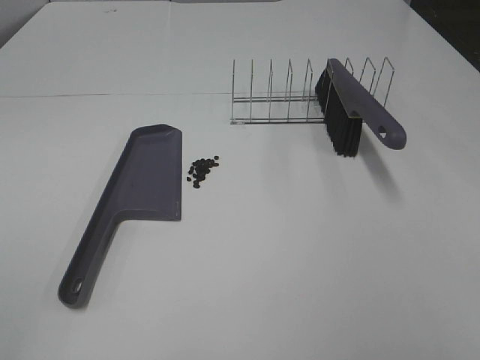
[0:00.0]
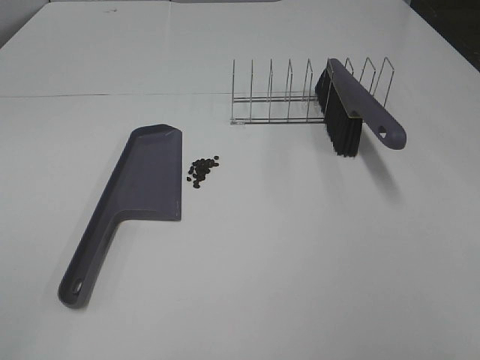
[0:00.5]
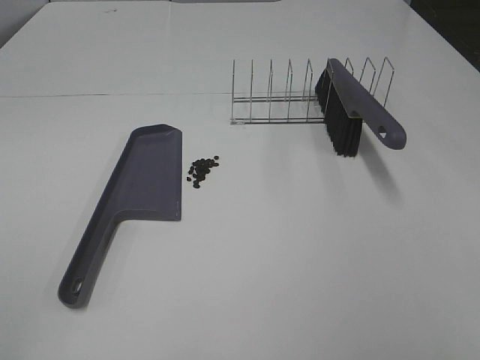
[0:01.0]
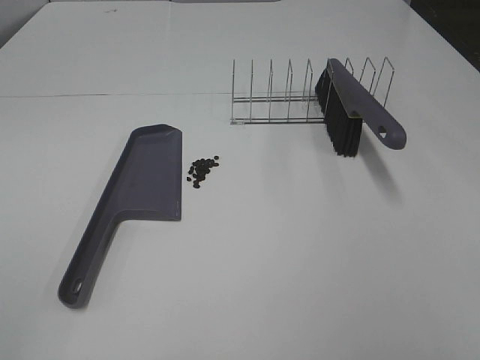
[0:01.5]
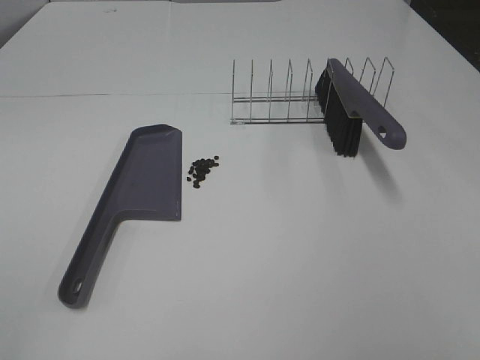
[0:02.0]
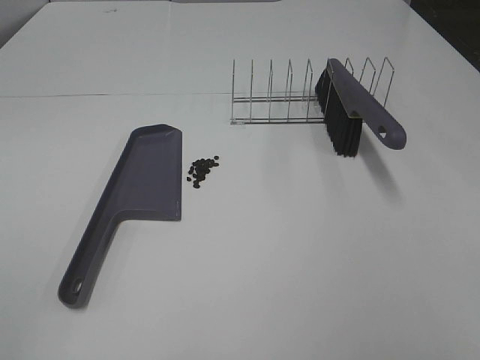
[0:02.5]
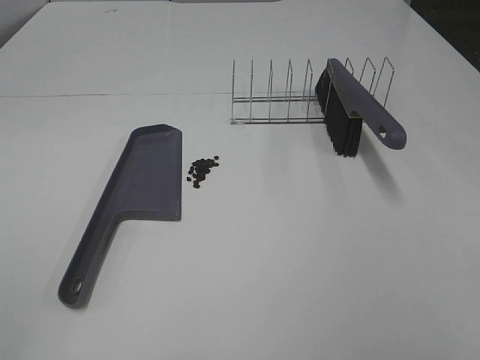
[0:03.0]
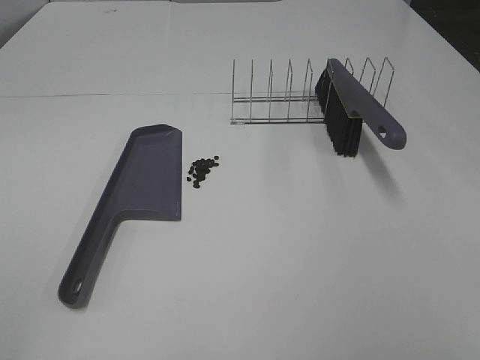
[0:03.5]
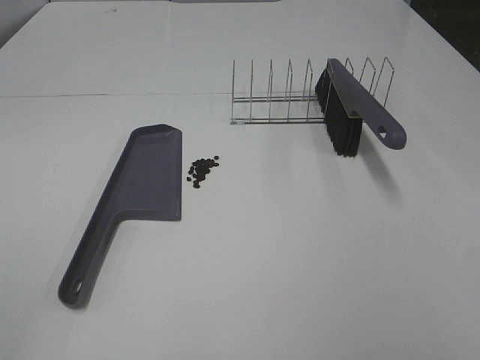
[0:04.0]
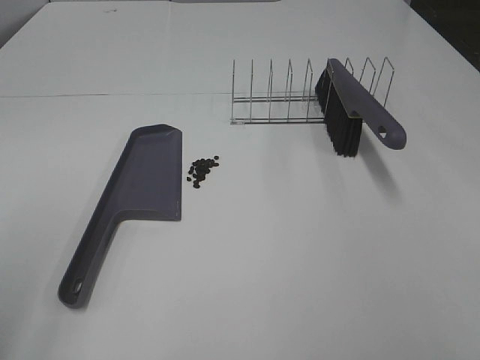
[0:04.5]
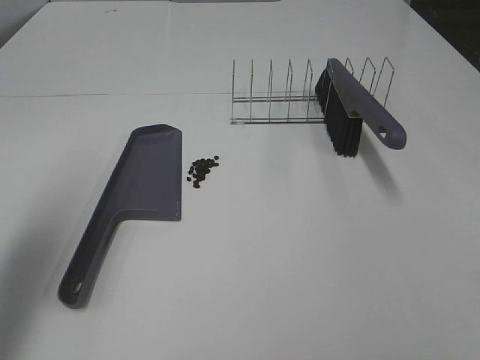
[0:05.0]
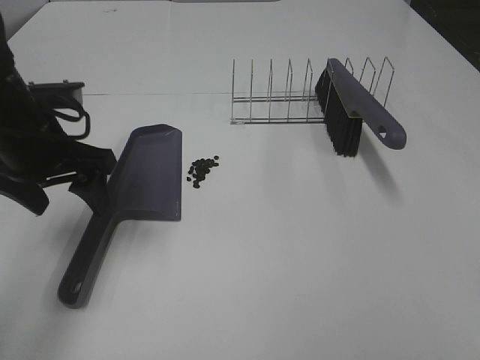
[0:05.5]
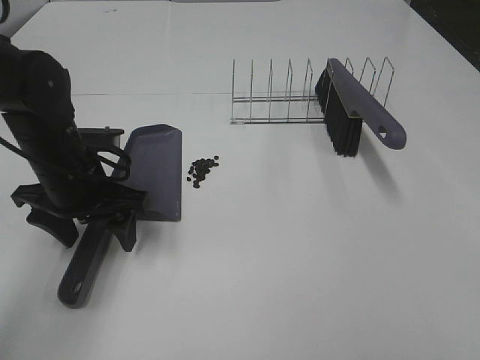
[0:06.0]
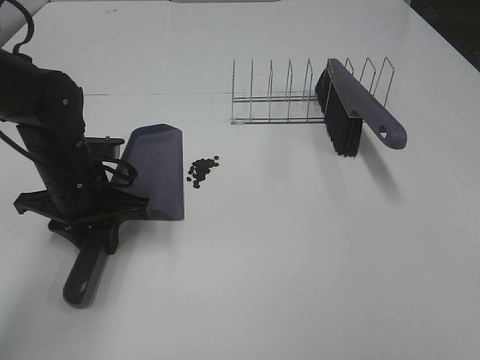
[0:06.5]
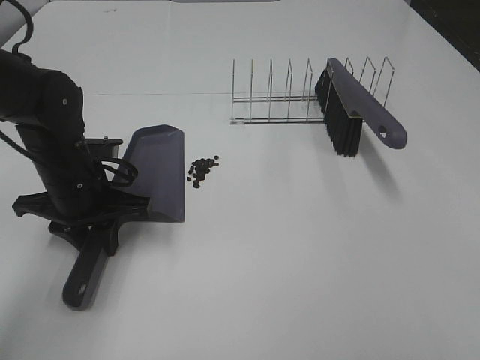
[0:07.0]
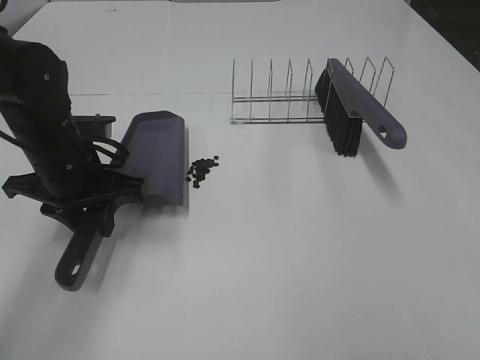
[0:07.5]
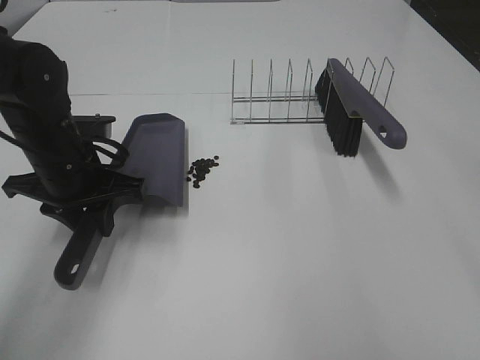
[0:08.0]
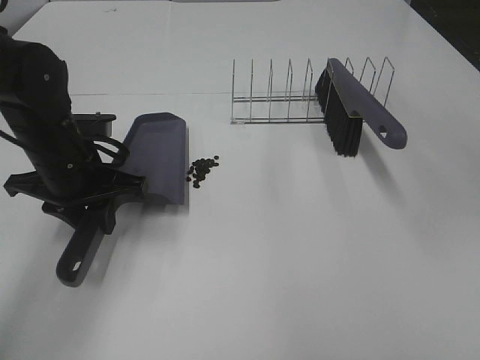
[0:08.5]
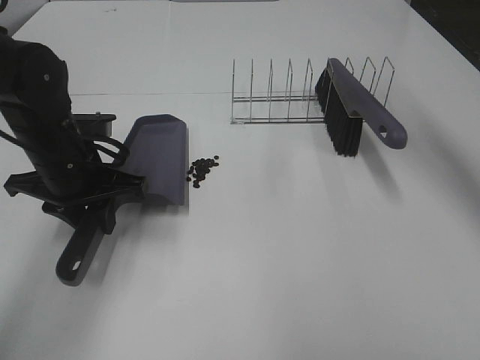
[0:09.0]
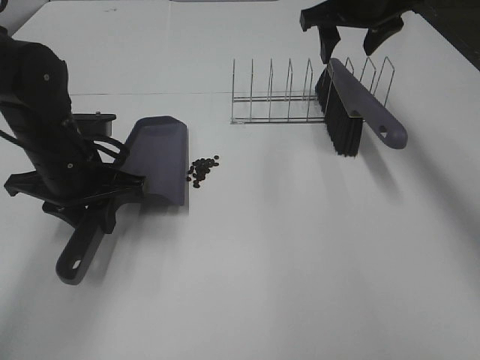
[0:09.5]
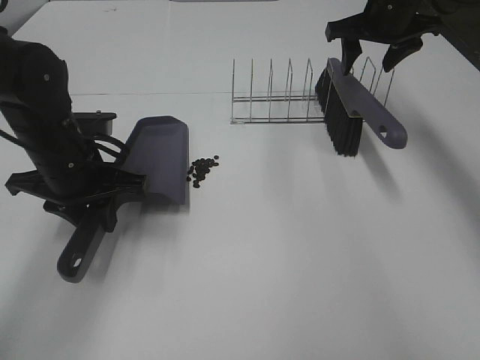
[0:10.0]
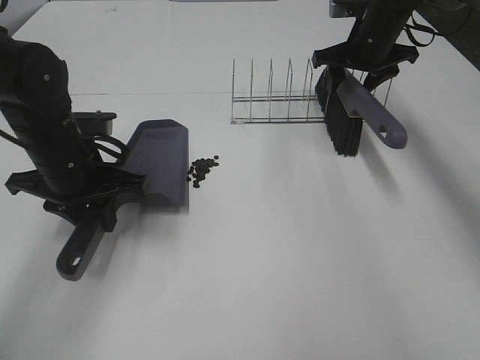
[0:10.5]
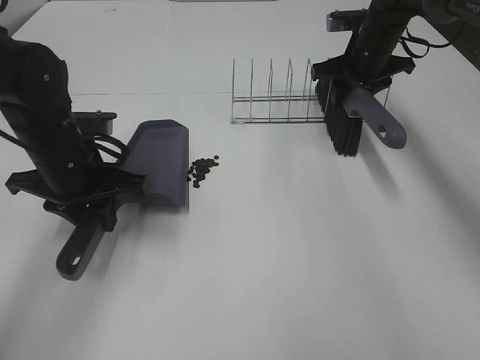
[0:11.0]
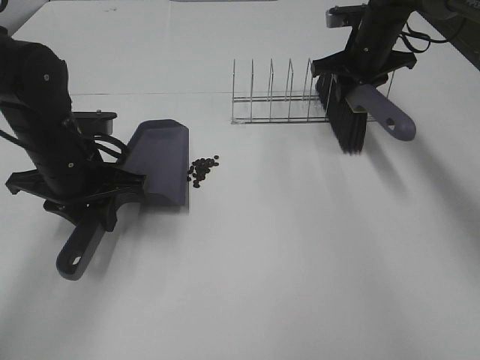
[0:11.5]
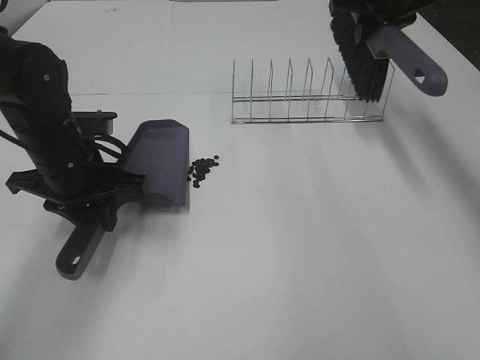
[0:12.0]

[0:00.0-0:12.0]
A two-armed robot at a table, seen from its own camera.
Task of the whole recording: Sweep Coffee Bean.
Step, 0:00.0 to 0:06.5: Left hand: grab the dustpan.
Step, 0:08.0 to 0:11.0: Right hand:grab the broom.
0:00.0 to 0:04.0: Both grippers stay put.
0:04.0 to 0:06.0: The left gripper goes about 40 cm forward, downward and to the right.
0:06.0 to 0:08.0: The left gripper closes up, while the right gripper travels forward and upward by about 15 cm.
0:08.0 to 0:10.0: The right gripper goes about 40 cm forward.
0:10.0 to 0:12.0: The right gripper moves roughly 5 cm downward and comes back, and closes.

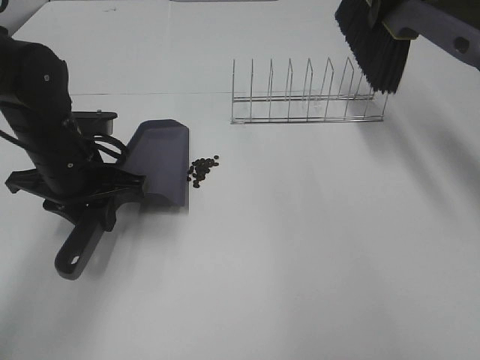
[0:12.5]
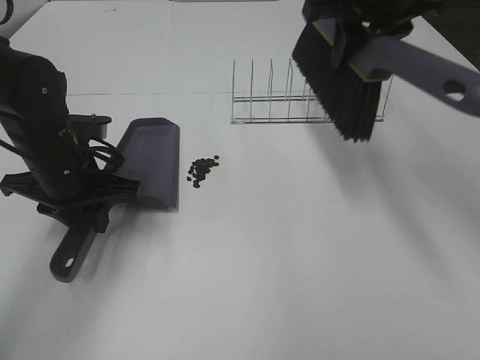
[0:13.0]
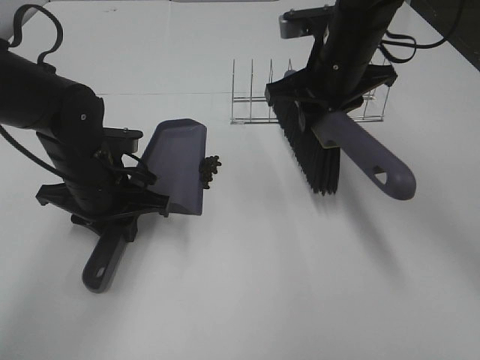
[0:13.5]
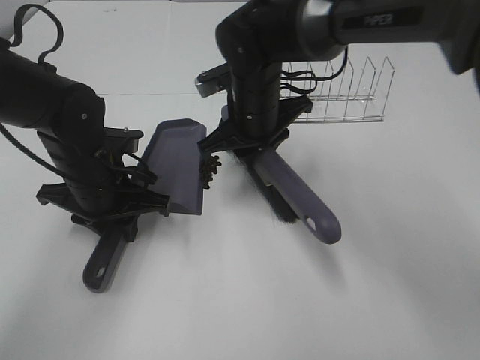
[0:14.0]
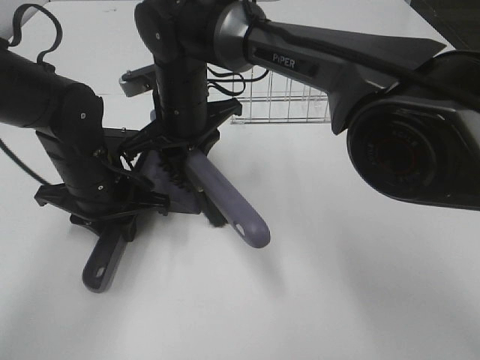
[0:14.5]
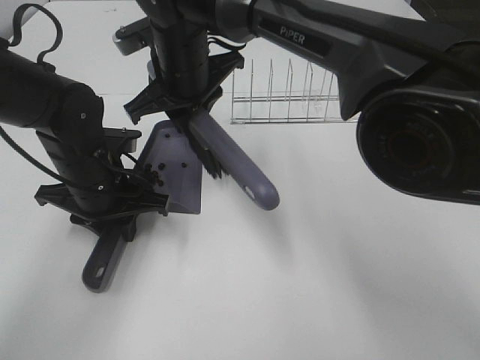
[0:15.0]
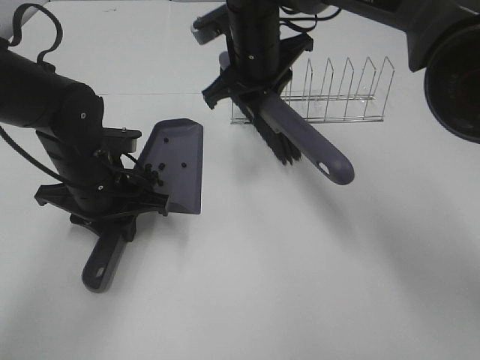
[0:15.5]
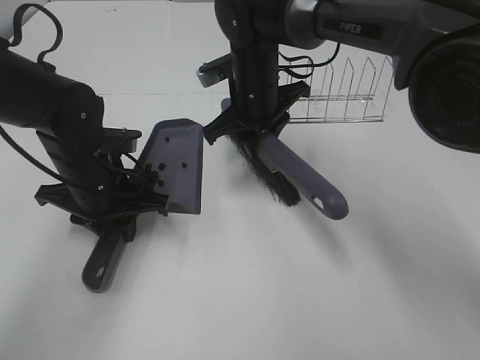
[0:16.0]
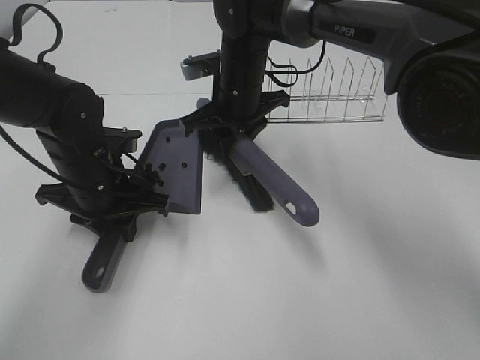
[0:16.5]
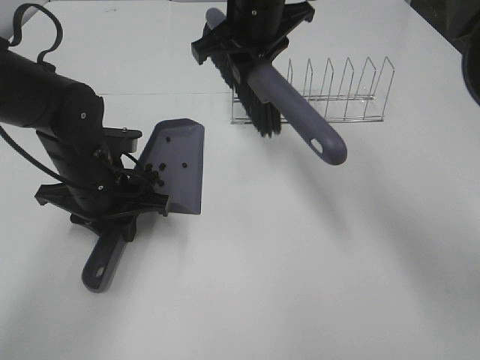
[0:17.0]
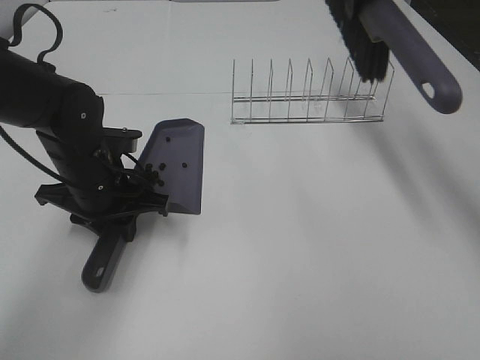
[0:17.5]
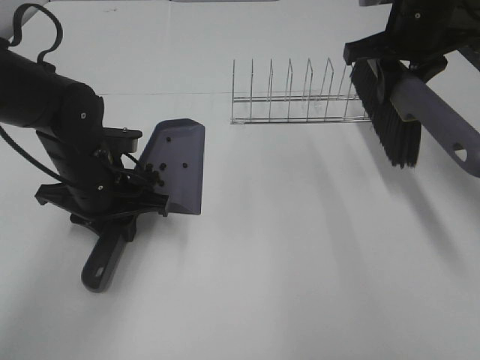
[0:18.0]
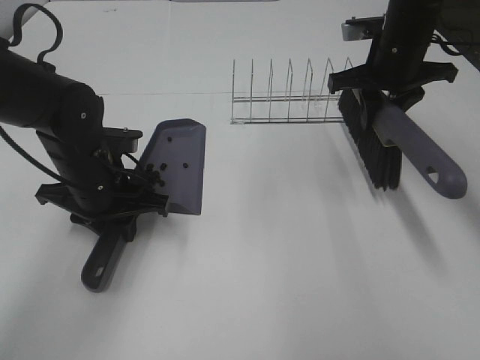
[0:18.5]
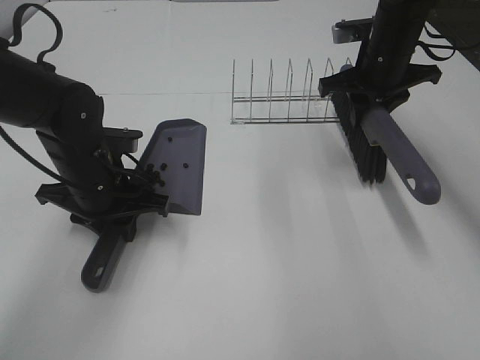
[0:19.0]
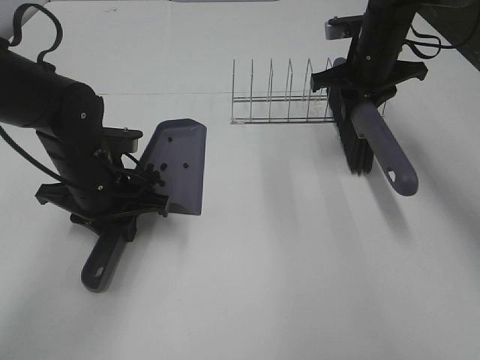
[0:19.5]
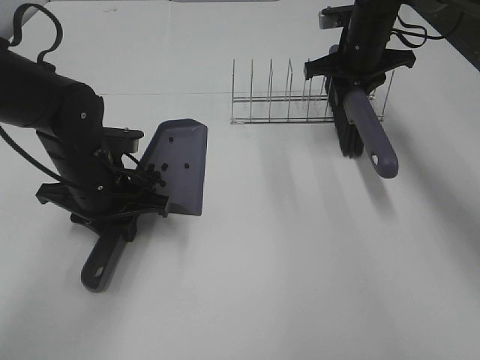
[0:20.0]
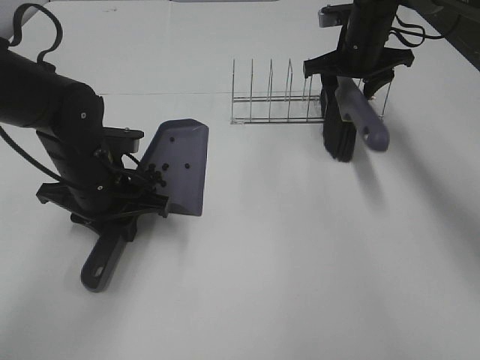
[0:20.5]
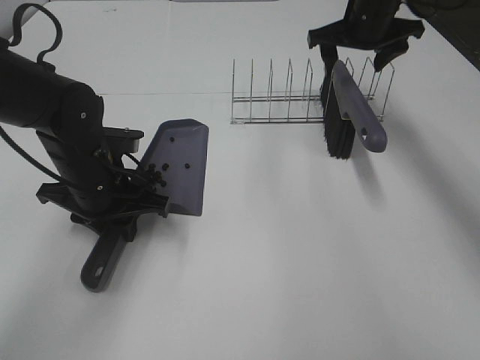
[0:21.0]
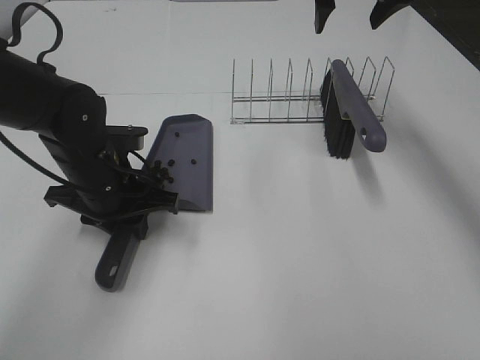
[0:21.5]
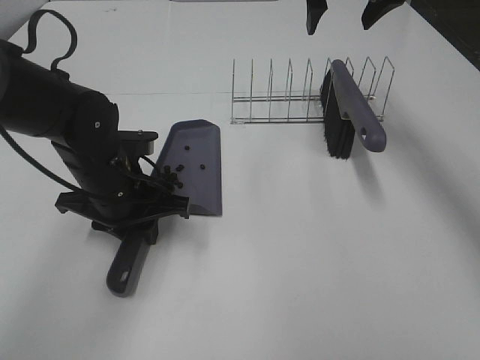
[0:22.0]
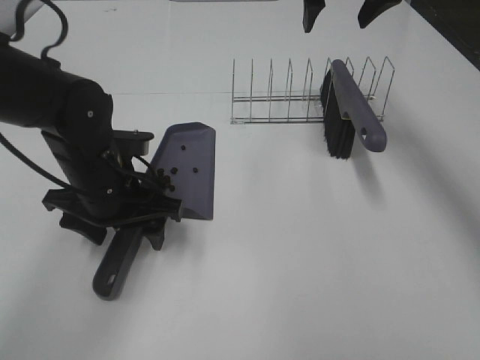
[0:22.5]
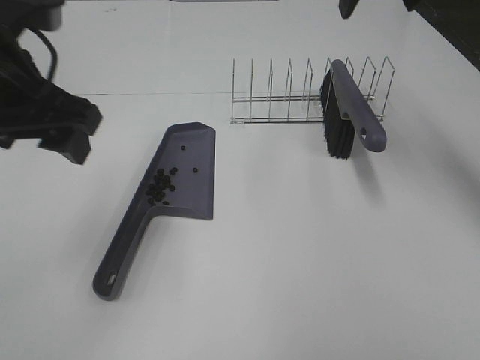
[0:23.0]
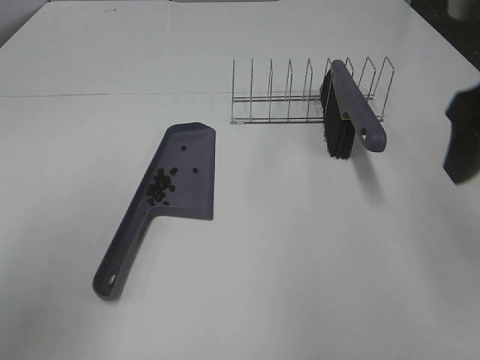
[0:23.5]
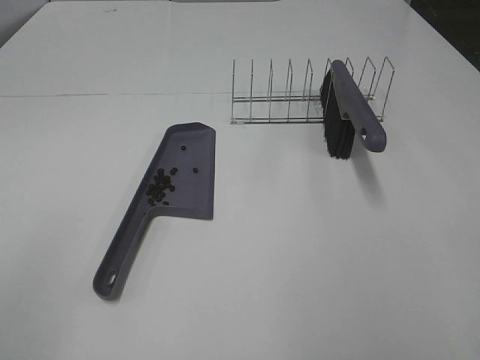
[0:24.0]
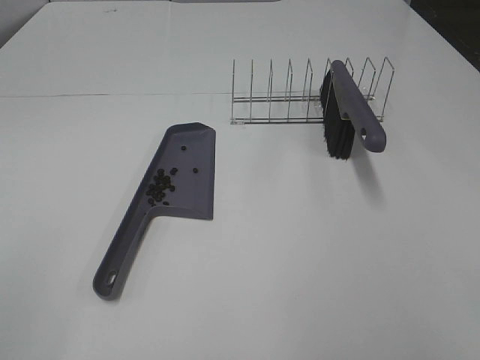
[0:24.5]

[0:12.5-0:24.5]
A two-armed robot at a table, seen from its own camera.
Task of the whole recording: Sweep Coffee Bean.
Step, 0:12.5 to 0:16.5: Right hand:sweep the coffee beans into the dustpan.
Step, 0:17.0 to 0:20.5: Right hand:place the broom on the rack.
Step, 0:21.0 to 0:22.5: Left hand:place the dustpan on the table.
0:12.5 to 0:14.5: The right gripper moves to the left and downward, about 30 cm.
0:14.5 to 0:16.5: The right gripper heads to the right, covering approximately 5 cm.
0:16.5 to 0:18.5: The right gripper moves to the right, approximately 20 cm.
0:18.5 to 0:20.5: The right gripper shifts approximately 10 cm forward, and opens its fingers.
0:20.5 to 0:22.5: The right gripper is displaced upward by about 15 cm, while the left gripper opens up.
0:22.5 to 0:24.5: The right gripper heads backward, covering approximately 50 cm. Meanwhile the left gripper moves backward, to the left and upward, about 40 cm.

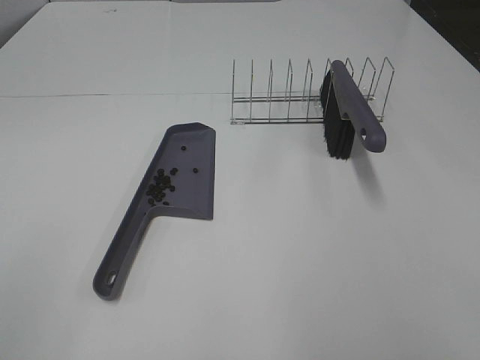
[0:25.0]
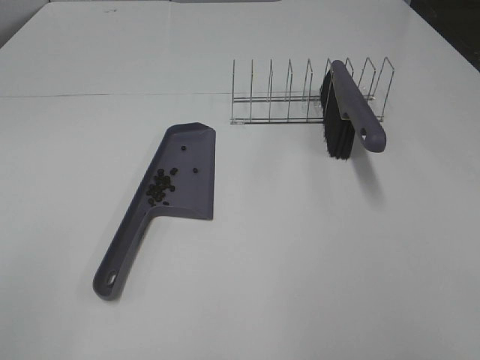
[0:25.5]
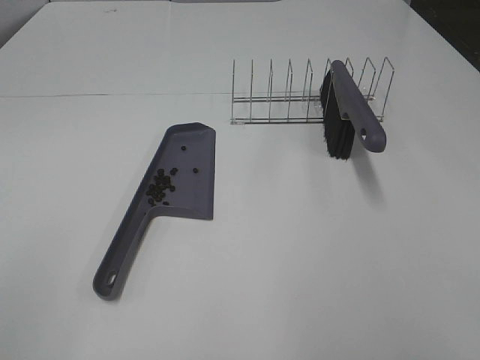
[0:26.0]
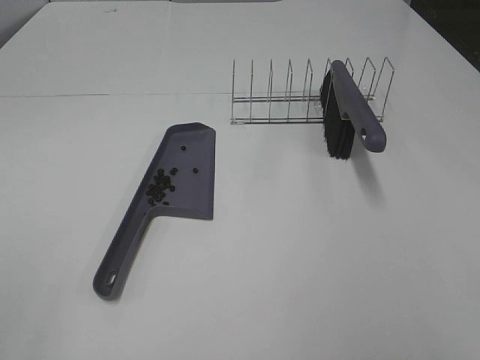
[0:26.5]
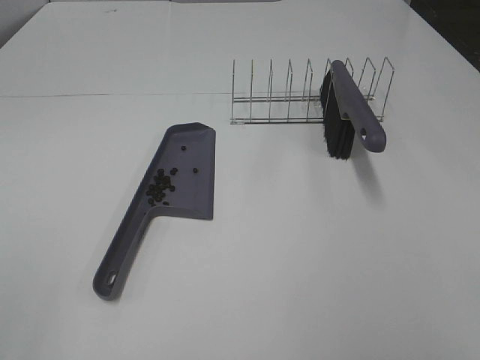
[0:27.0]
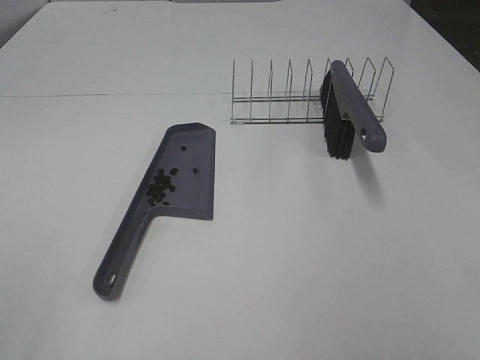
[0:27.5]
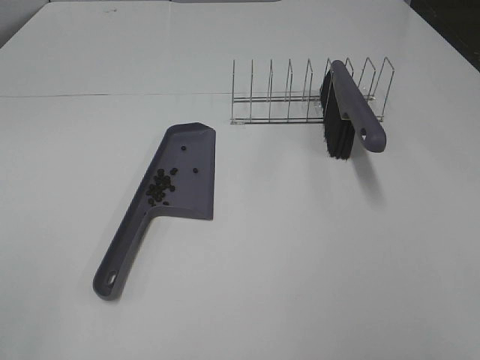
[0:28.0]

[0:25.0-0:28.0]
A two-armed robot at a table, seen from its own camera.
Task of the whole recording: Sweep Coffee Bean.
0:26.5 to 0:28.0: The two grippers keep their place.
